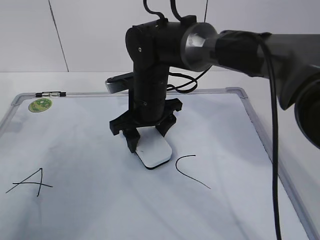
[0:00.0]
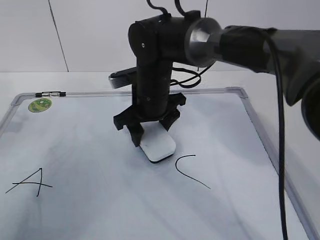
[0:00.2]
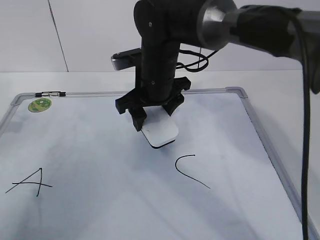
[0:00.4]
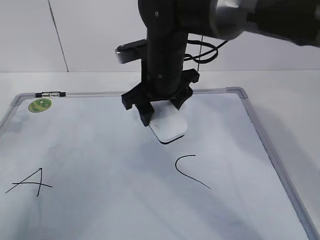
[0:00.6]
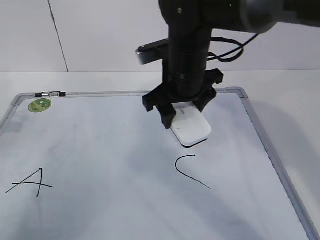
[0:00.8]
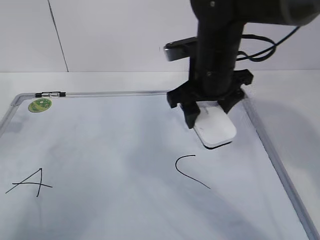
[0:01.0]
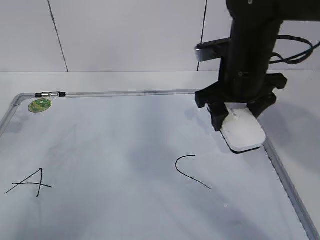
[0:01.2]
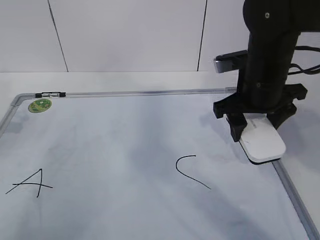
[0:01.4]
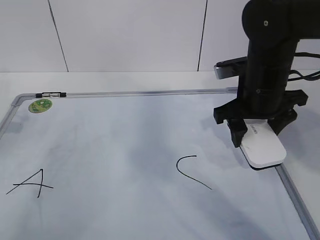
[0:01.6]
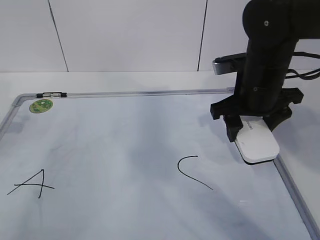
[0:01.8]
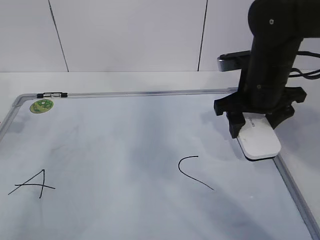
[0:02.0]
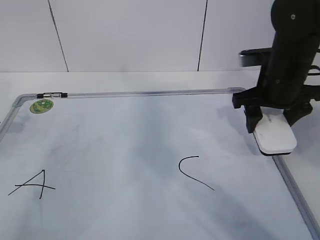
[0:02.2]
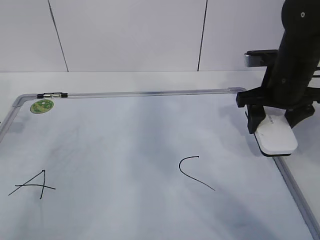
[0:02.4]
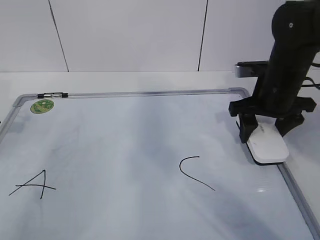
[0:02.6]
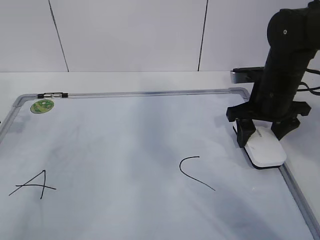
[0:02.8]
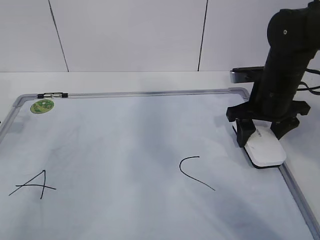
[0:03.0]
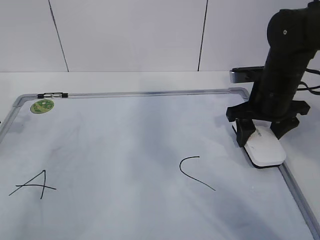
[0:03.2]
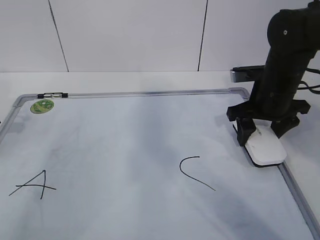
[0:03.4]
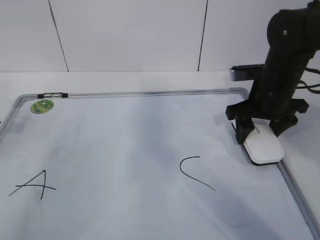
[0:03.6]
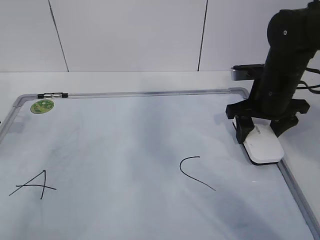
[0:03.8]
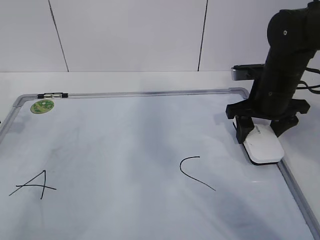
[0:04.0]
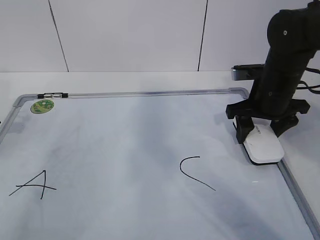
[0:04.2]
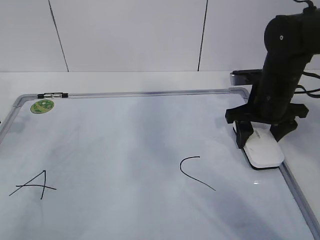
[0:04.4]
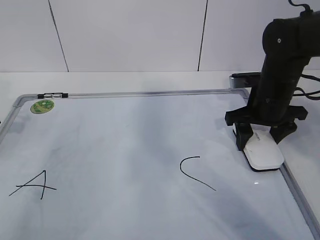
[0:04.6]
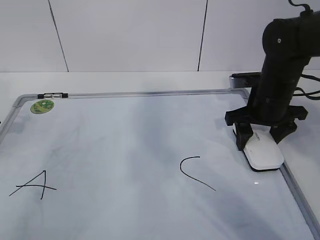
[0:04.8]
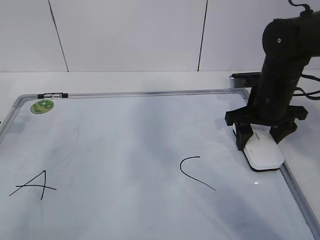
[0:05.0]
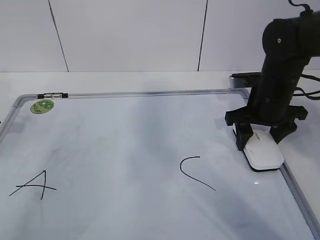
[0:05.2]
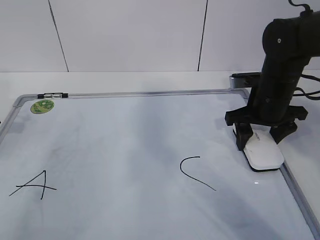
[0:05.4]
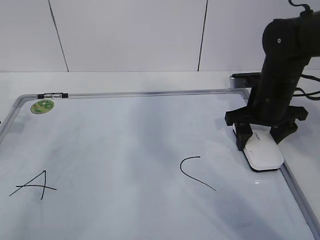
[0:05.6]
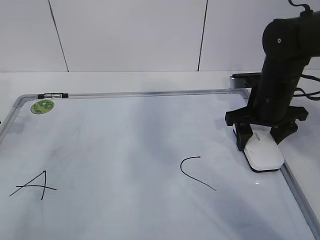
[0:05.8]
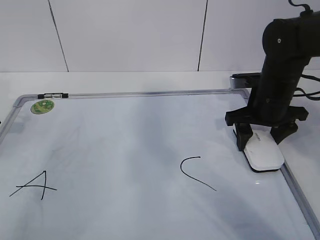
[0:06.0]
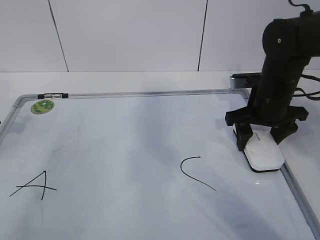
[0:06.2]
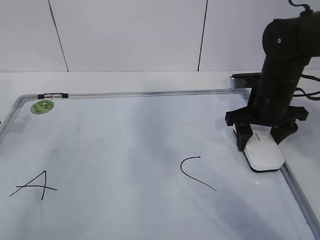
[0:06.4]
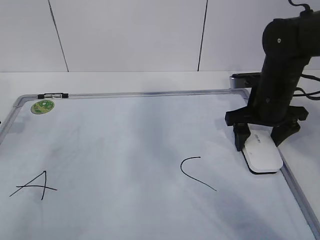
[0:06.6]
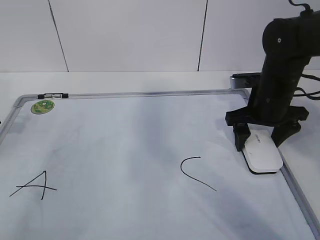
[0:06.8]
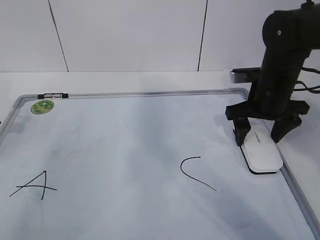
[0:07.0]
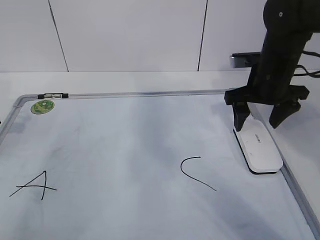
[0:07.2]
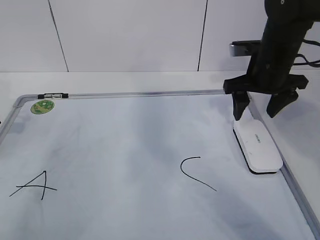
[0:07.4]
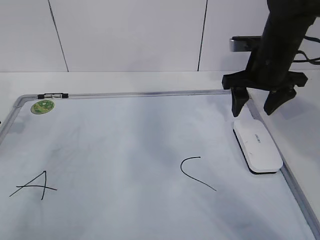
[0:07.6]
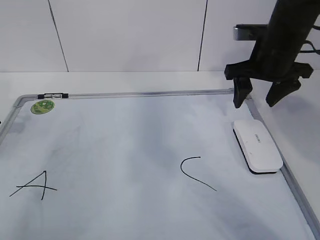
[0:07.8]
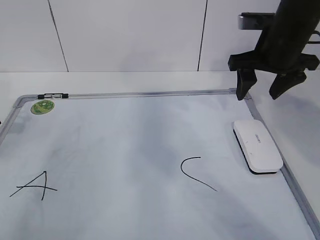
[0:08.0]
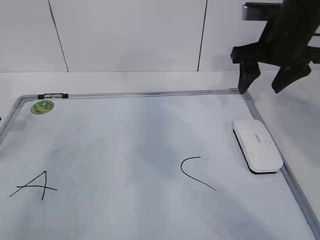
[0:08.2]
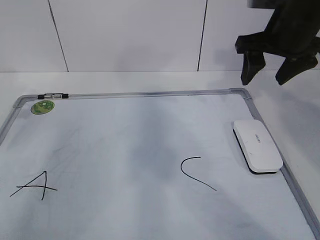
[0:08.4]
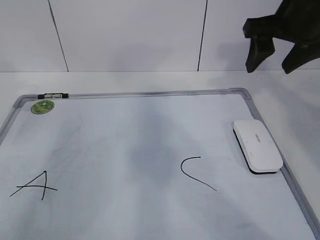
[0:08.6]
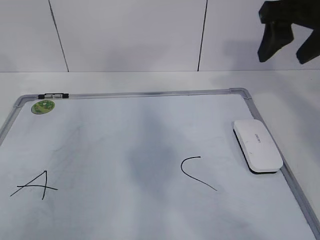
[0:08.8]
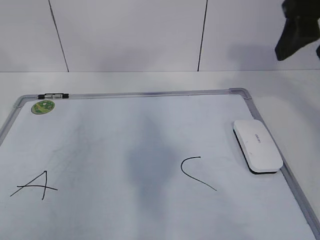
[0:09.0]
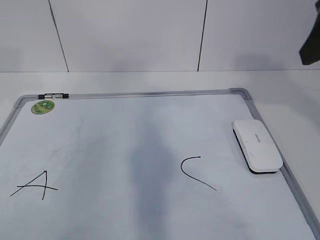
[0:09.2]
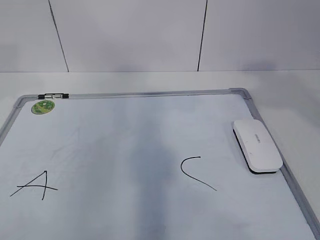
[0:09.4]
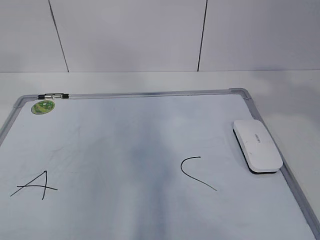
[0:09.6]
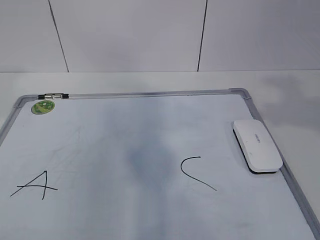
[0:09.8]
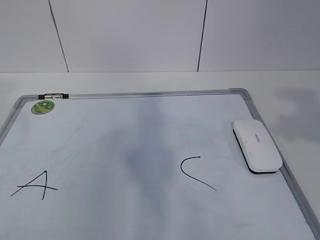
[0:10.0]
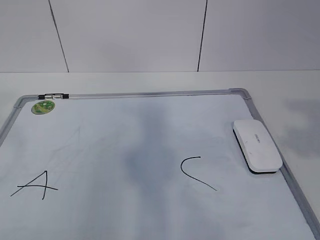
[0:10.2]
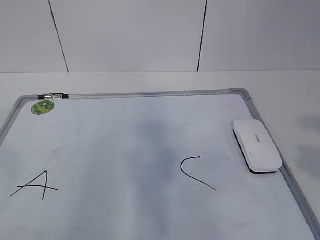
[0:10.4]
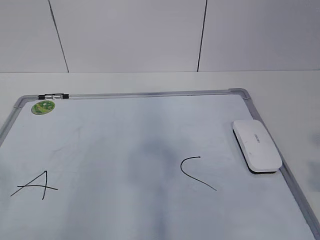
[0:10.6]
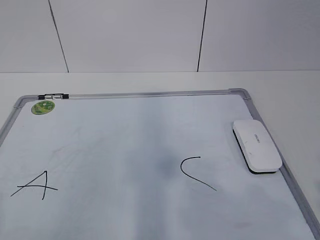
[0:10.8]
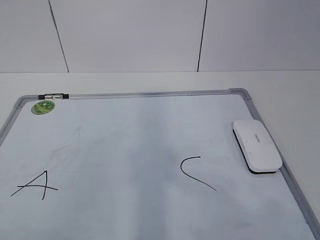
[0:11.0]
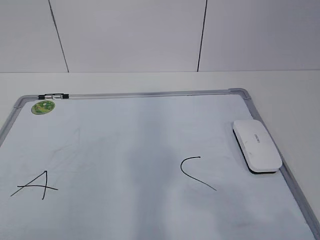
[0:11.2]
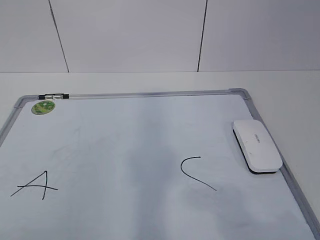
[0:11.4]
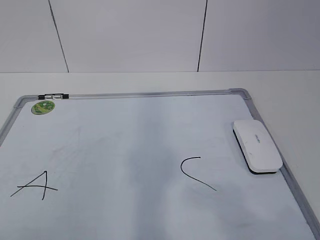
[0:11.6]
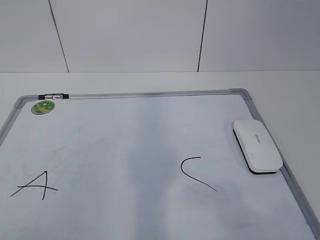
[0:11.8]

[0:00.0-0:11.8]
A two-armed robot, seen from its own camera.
Task of the whole recording: pick up the eraser on the blackboard and erase the letter "B".
0:00.0 to 0:01.4: The right gripper travels to the right and upward by approximately 15 cm.
0:01.4 to 0:03.0: The right gripper changes place by about 5 cm.
0:03.0 to 0:04.4: Both grippers stay about where they are.
0:04.4 to 0:06.0: The two grippers keep their place.
0:06.0 to 0:07.4: The right gripper ends up roughly 5 cm from where it was.
0:07.4 to 0:08.8: The right gripper moves upward and backward, approximately 15 cm. Meanwhile the left gripper shifts roughly 5 cm upward, and opens.
0:08.8 to 0:10.4: The left gripper moves backward and upward, some 35 cm; the right gripper moves backward, about 30 cm.

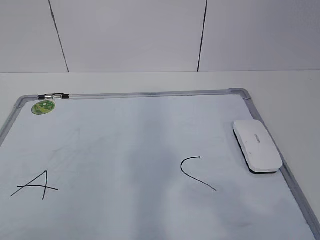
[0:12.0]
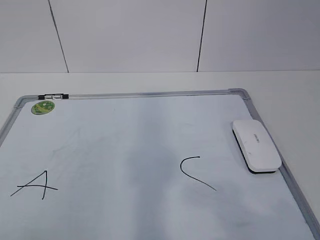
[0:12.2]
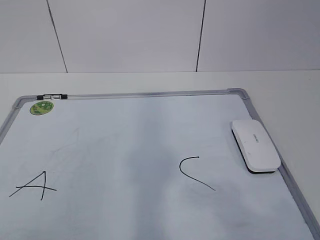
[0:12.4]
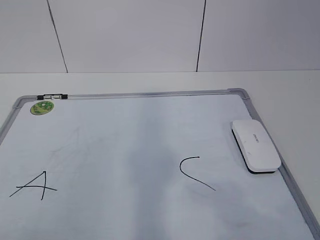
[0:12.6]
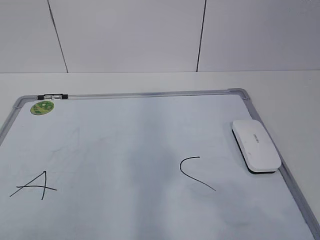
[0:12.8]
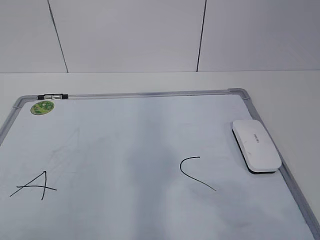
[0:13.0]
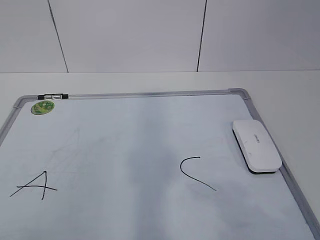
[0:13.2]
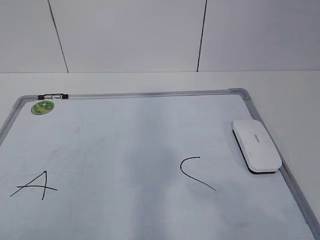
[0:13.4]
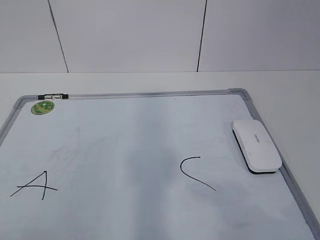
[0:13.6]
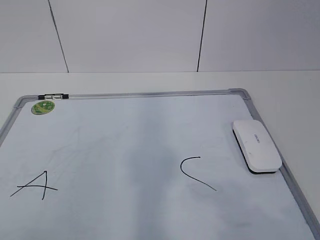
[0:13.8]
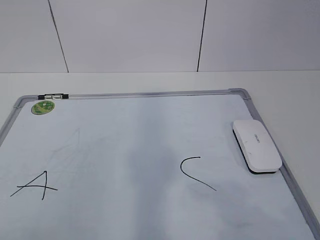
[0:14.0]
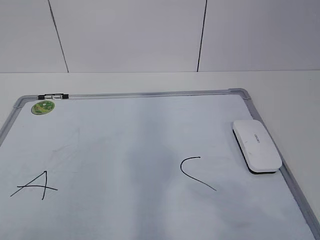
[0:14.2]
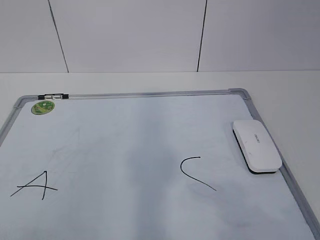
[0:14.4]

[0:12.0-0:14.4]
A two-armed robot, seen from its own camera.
Task of the whole recording: pick up the eraser on the blackboard and erase the letter "B".
0:13.2 to 0:14.4: Neither gripper changes place.
